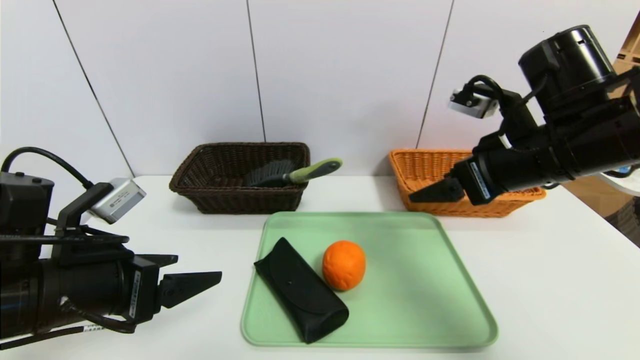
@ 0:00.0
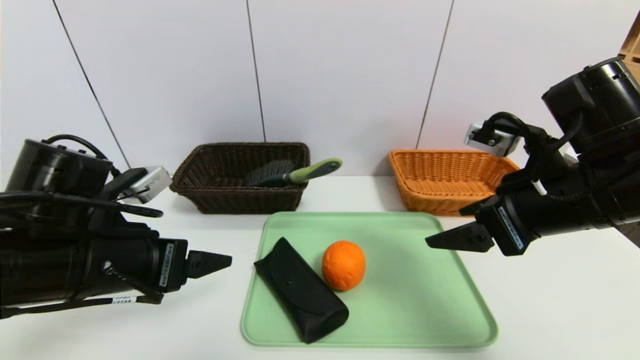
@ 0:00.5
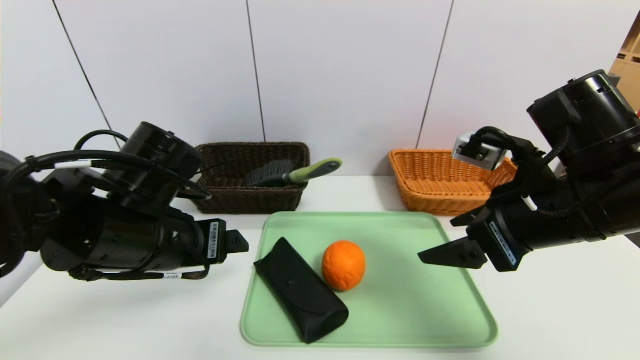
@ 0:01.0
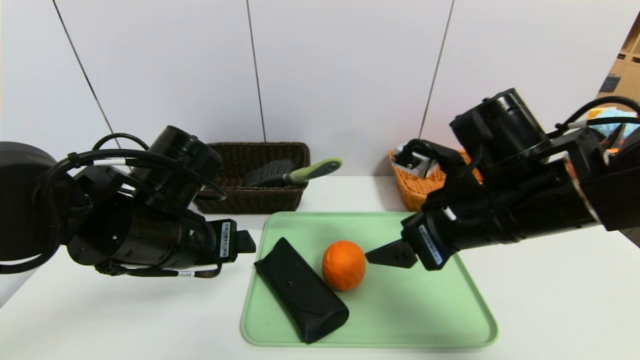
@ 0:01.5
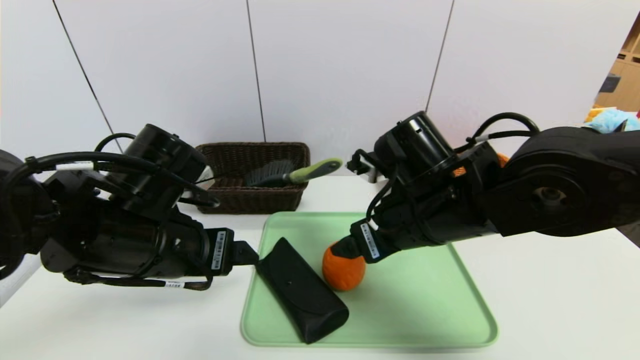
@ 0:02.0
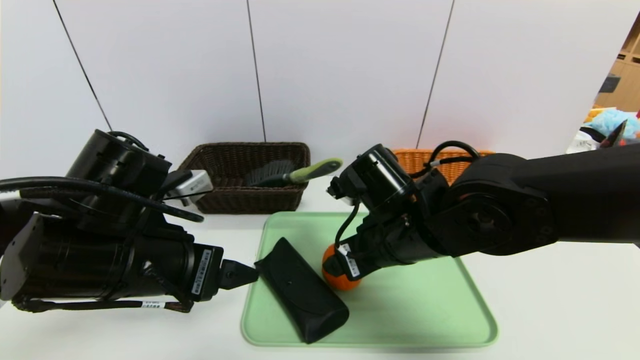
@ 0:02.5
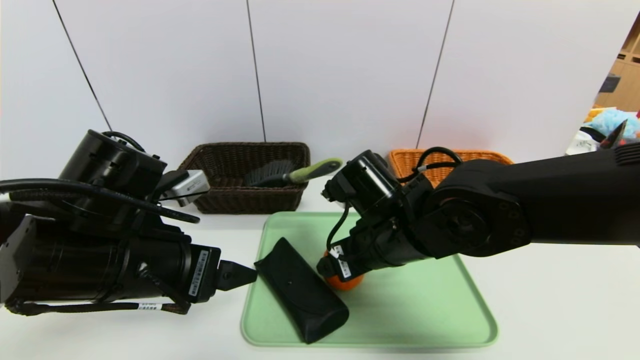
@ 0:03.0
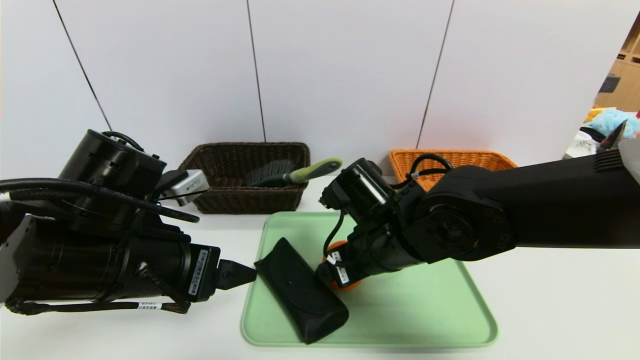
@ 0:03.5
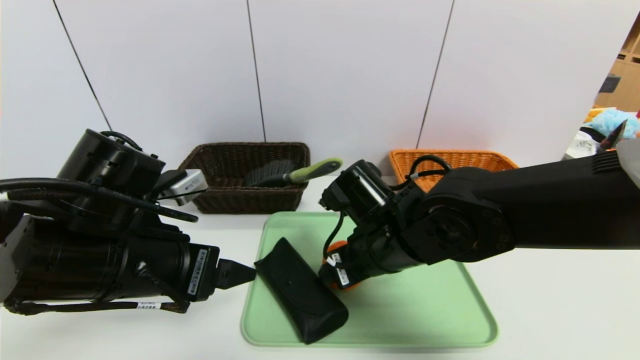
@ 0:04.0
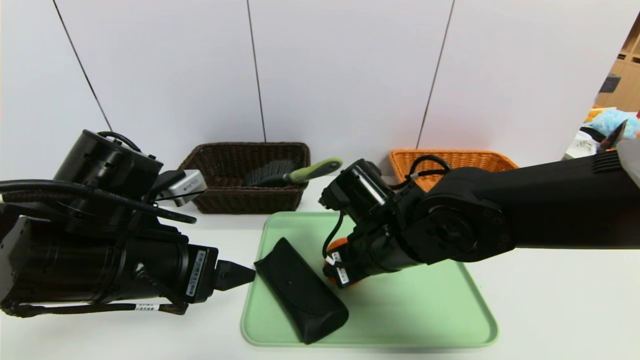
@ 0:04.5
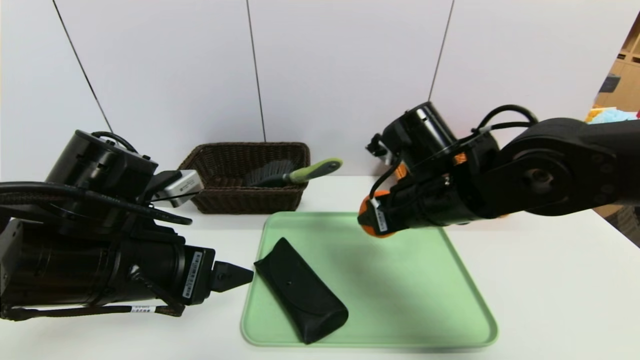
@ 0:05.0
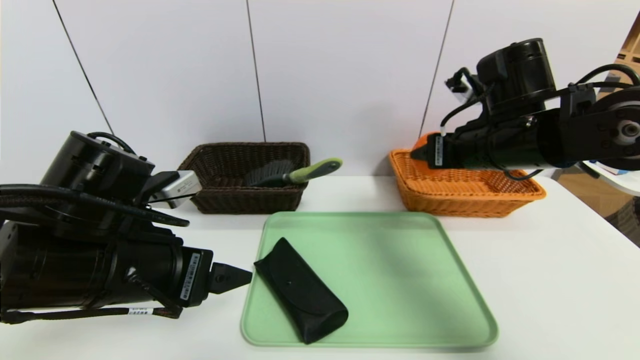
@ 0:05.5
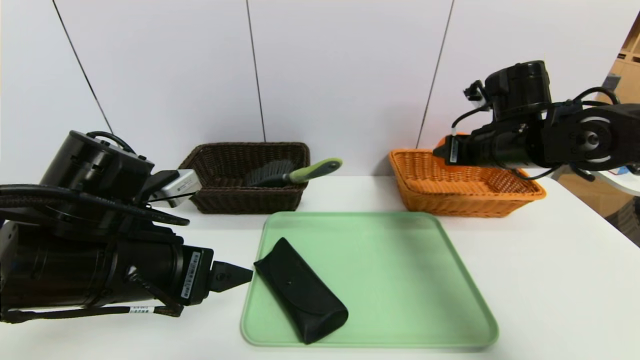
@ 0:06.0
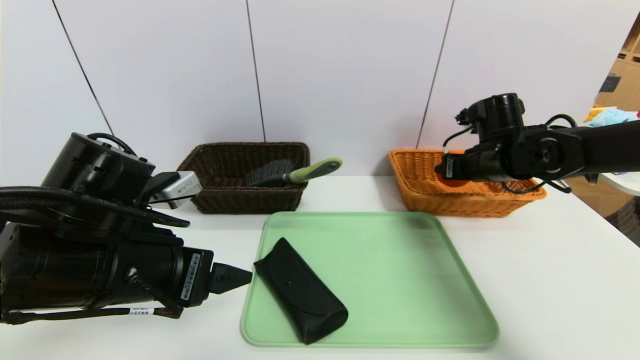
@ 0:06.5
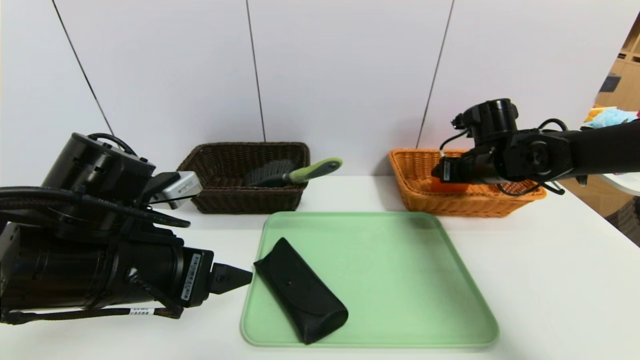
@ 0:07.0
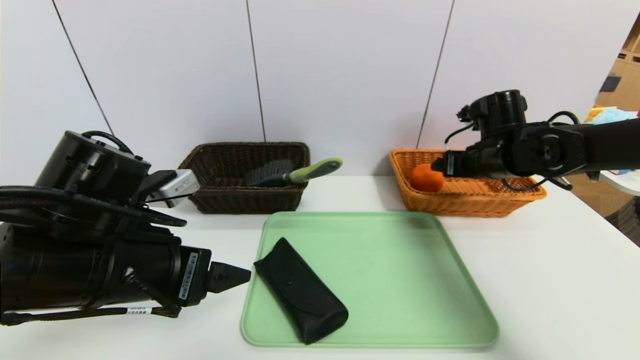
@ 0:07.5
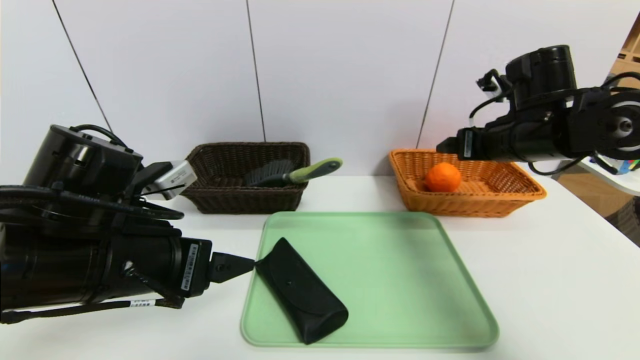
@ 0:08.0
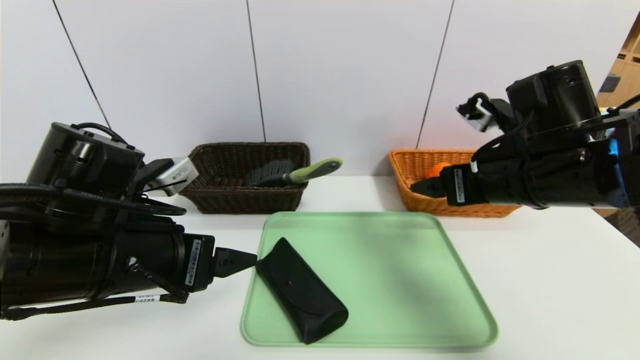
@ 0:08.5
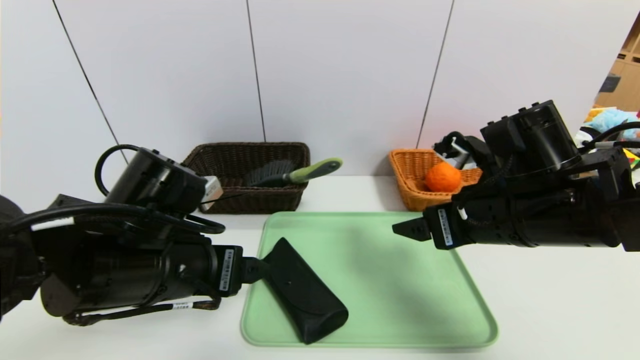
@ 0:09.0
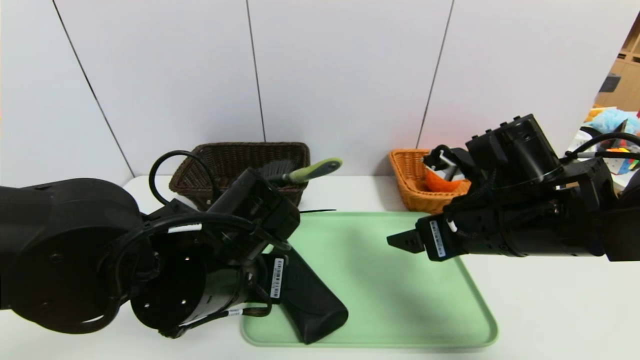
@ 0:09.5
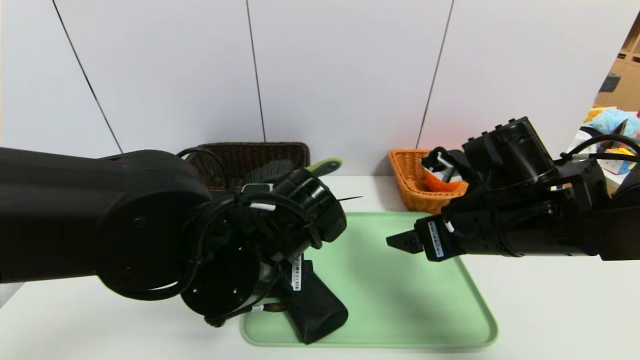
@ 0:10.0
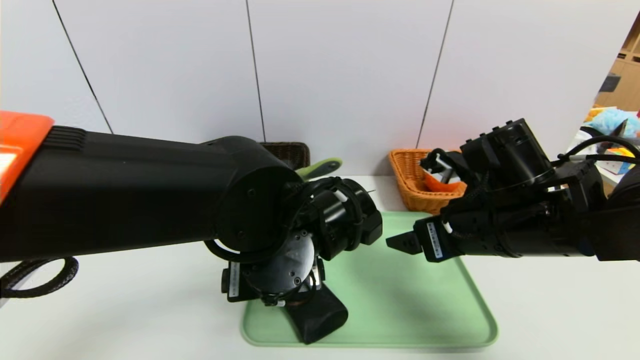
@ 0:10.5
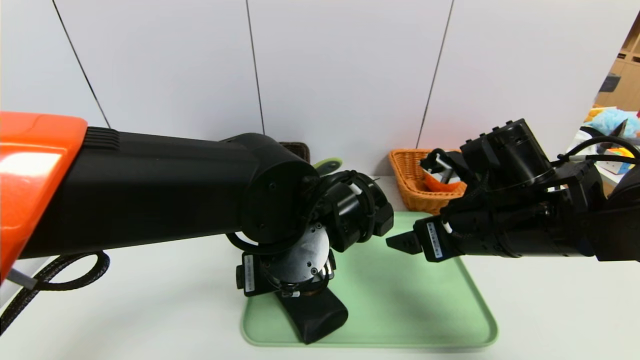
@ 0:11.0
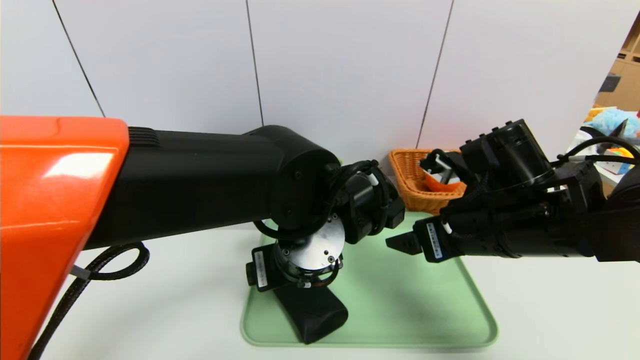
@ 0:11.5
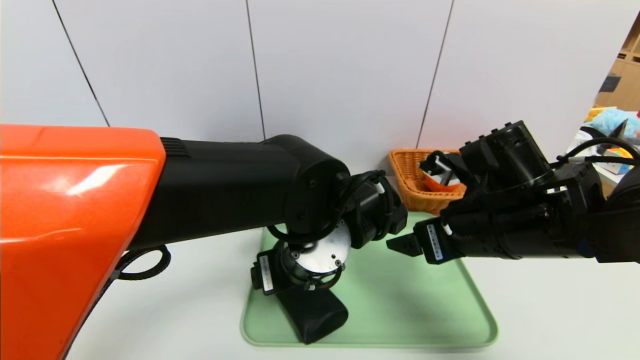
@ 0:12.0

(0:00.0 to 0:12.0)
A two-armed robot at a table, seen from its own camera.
Task of the whole recording: place the food in the right basket with the right gripper, and place the non food items in the left basket with the left gripper.
Step, 0:00.0 - 0:07.5: Grasp the orange and put it in the right basket.
0:00.0 - 0:02.0: The left gripper moves to the right, approximately 5 cm; the right gripper is displaced to the left and downward by roughly 15 cm.
0:02.0 - 0:04.0: The right gripper changes place by about 5 cm.
0:04.0 - 0:06.0: The right gripper is displaced to the right, forward and upward by about 20 cm.
0:06.0 - 0:08.0: The right gripper travels downward and back again, about 5 cm each way.
0:08.0 - 0:10.0: The left gripper shifts some 10 cm to the right. Meanwhile the right gripper moves backward, to the left and downward, about 15 cm.
0:10.0 - 0:12.0: The left gripper shifts about 5 cm to the right.

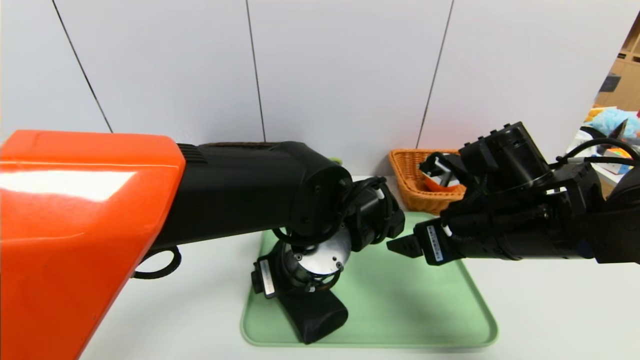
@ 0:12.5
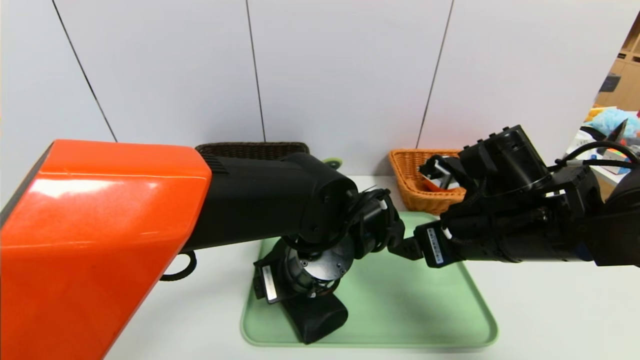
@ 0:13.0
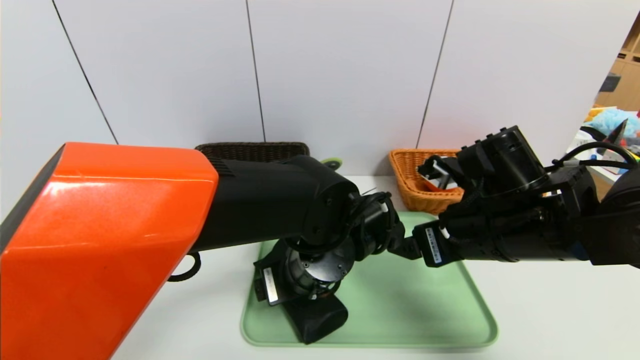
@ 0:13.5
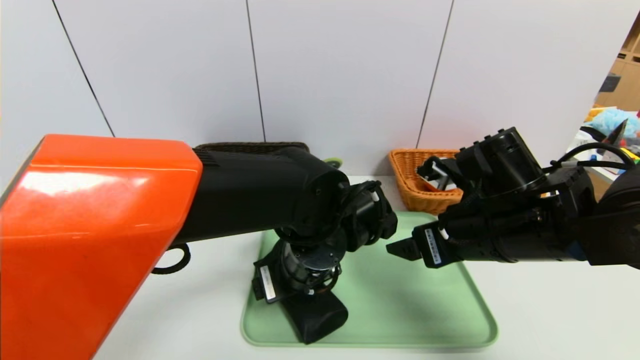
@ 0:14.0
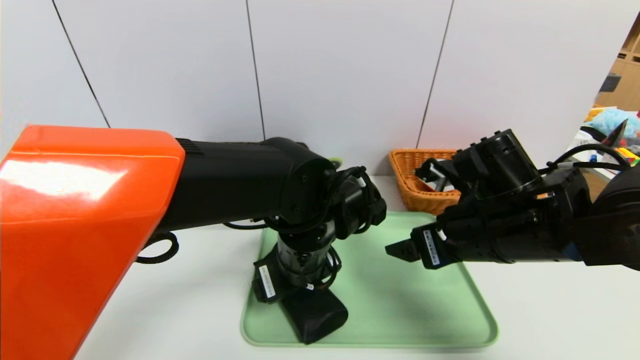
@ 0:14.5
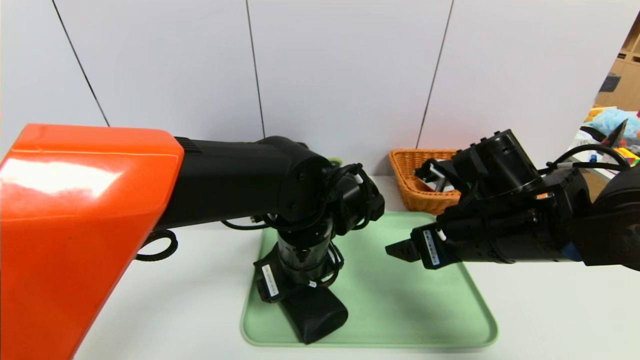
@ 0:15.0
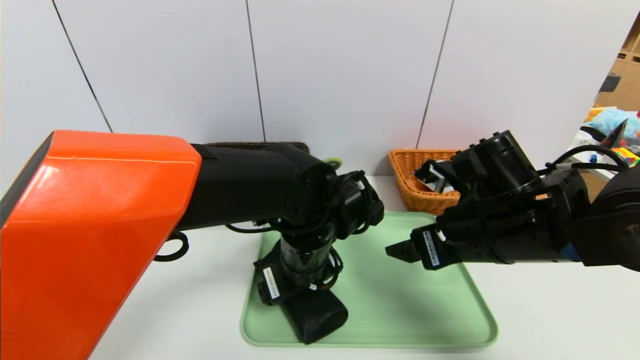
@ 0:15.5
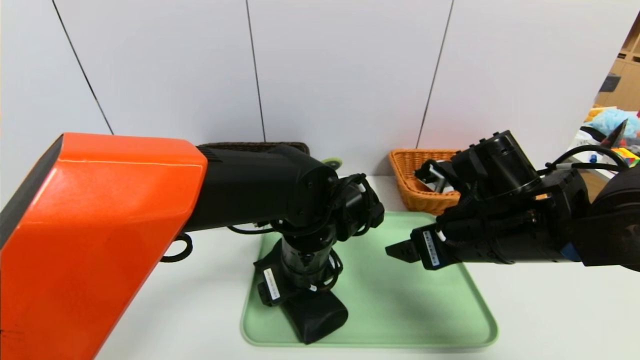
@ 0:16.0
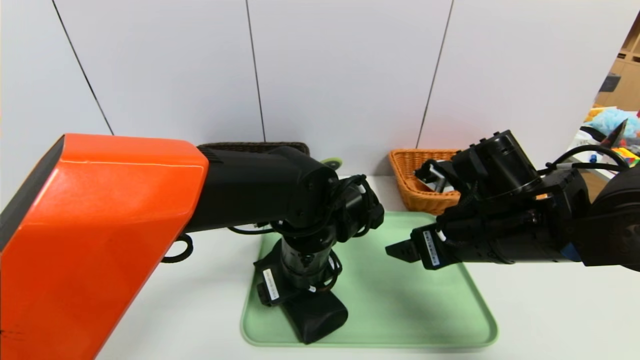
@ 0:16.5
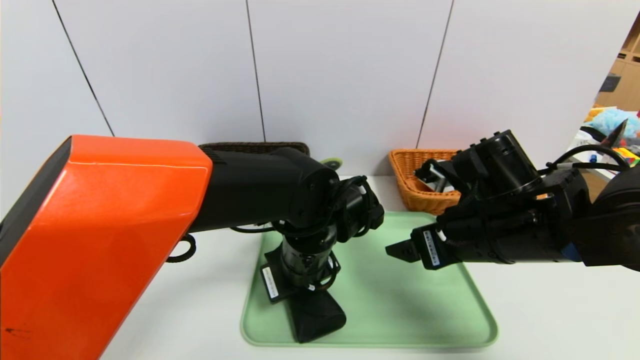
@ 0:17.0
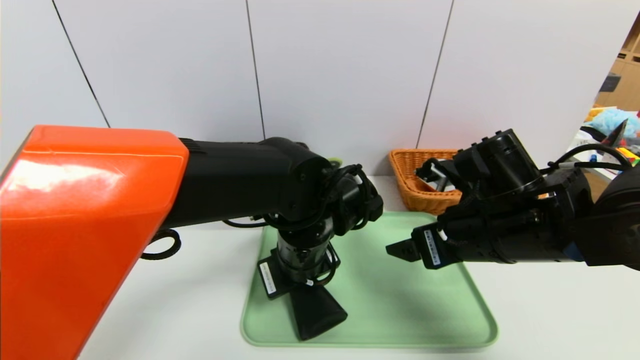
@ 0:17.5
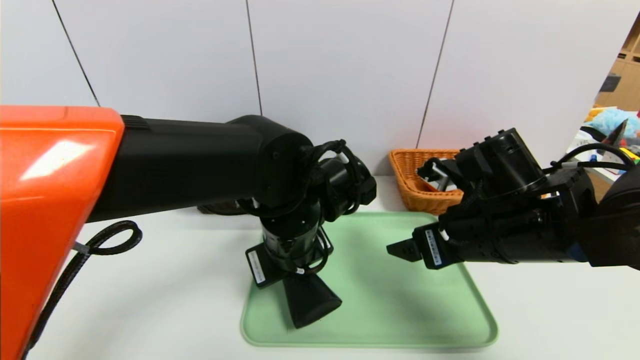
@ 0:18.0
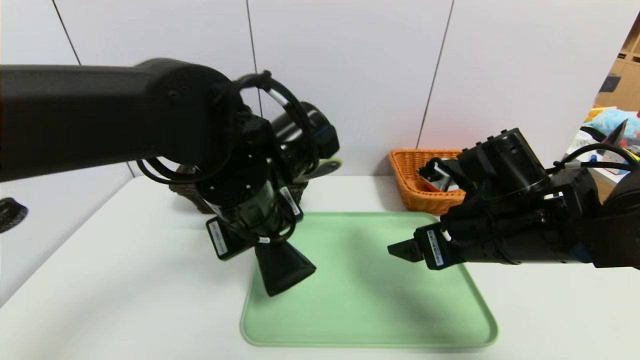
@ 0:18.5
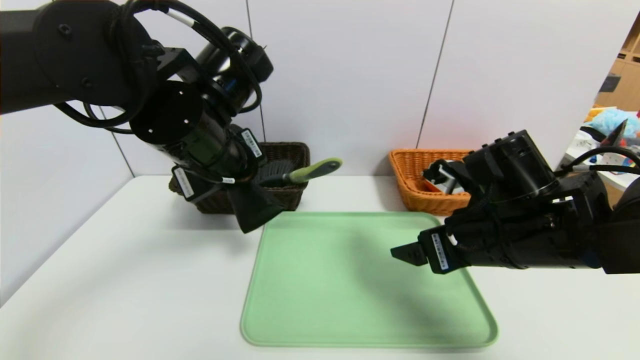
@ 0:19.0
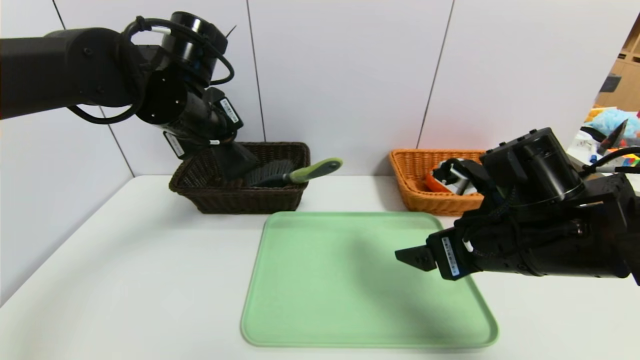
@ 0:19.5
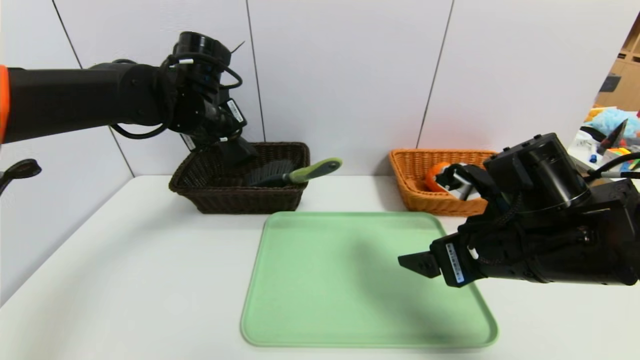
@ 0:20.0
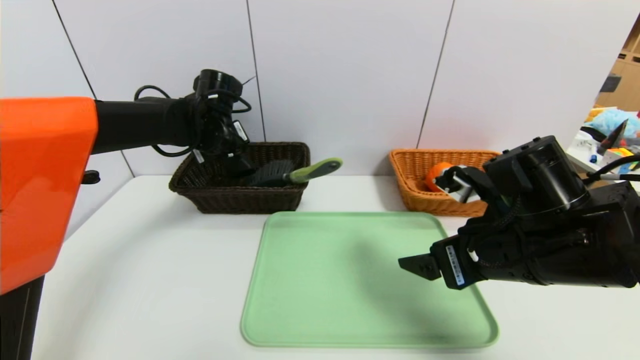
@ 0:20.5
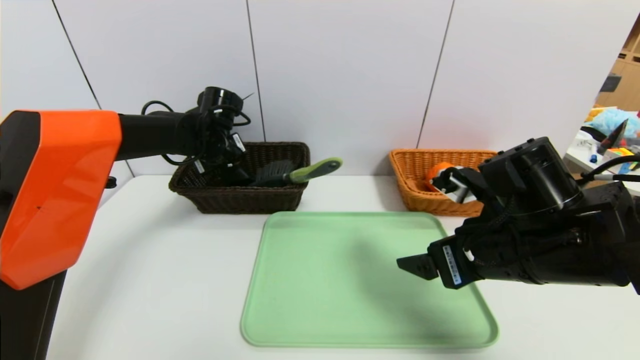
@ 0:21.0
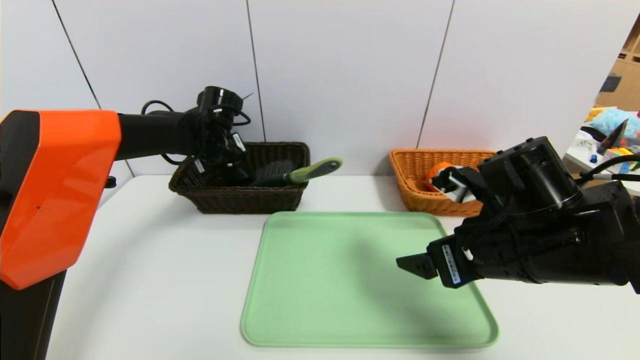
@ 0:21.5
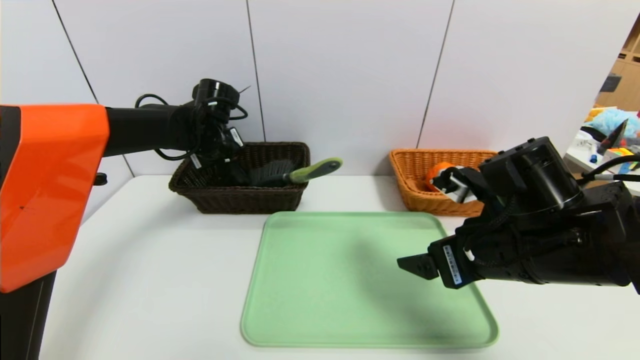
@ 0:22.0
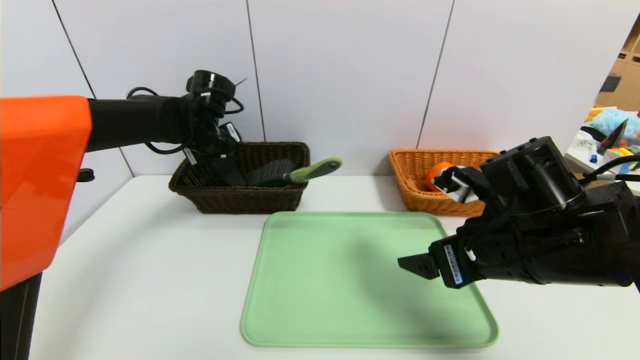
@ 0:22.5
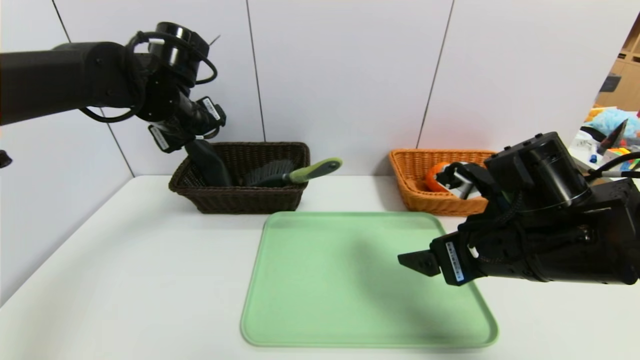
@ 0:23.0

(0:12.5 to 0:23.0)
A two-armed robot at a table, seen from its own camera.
Task of the whole recording: place the food in the right basket with the right gripper, and place the non food items in the left basket with the left gripper.
Step, 0:12.5 - 0:23.0: Grasp the glasses case and put it in the left basket.
0:12.5 - 0:16.5: The grippers make only small movements.
0:16.5 - 0:19.0: The left gripper moves upward and to the left, approximately 20 cm, and closes.
0:19.0 - 0:21.0: The left gripper heads forward and downward, covering about 20 cm.
0:21.0 - 0:23.0: The left gripper travels upward and backward by approximately 10 cm, and opens up.
